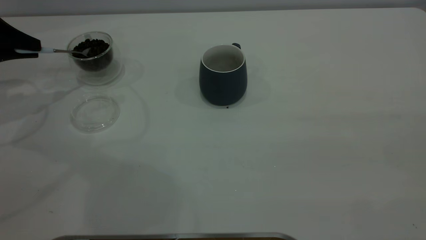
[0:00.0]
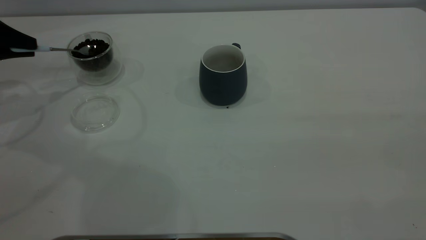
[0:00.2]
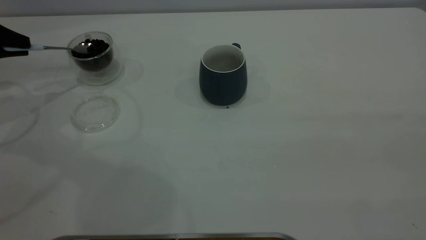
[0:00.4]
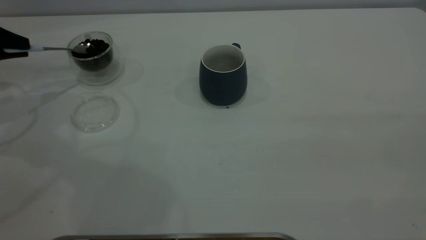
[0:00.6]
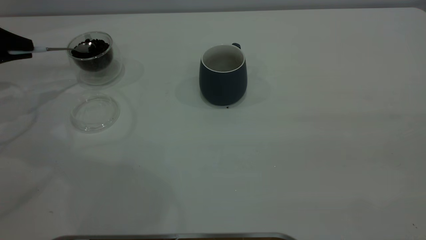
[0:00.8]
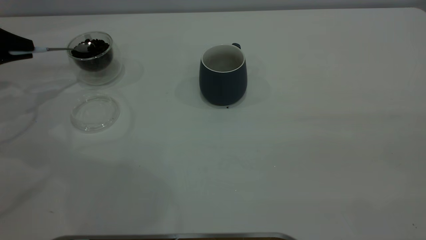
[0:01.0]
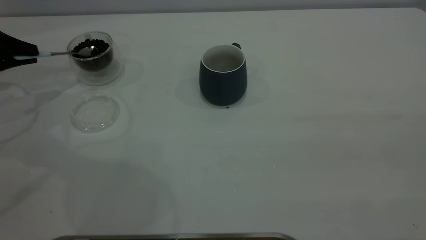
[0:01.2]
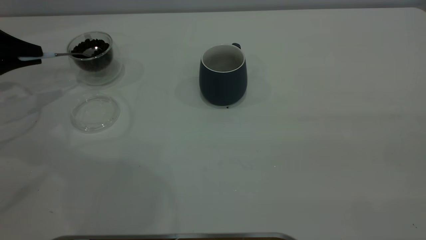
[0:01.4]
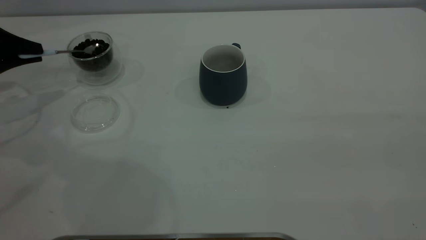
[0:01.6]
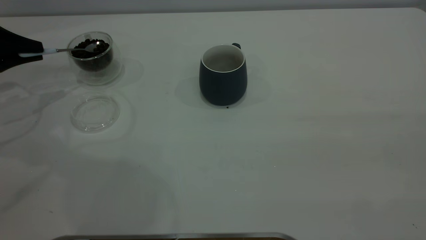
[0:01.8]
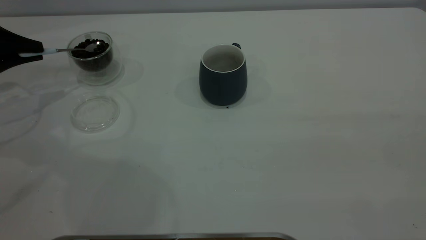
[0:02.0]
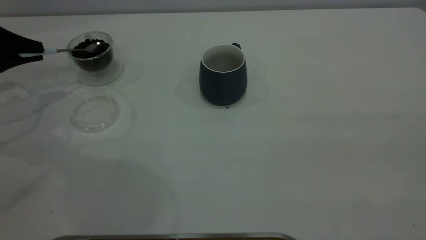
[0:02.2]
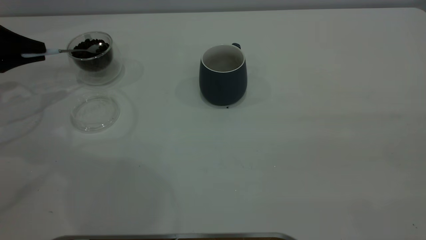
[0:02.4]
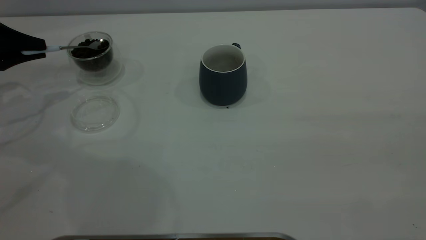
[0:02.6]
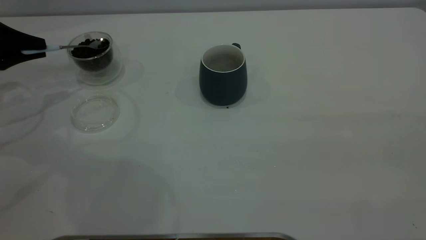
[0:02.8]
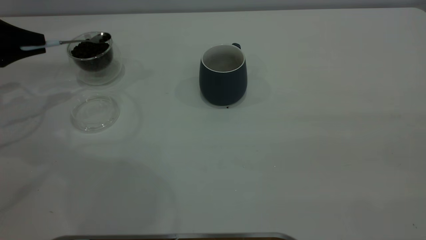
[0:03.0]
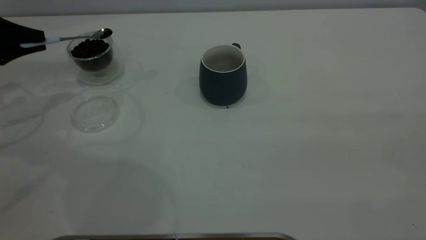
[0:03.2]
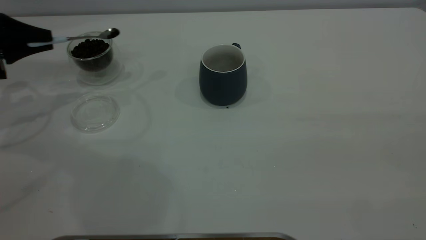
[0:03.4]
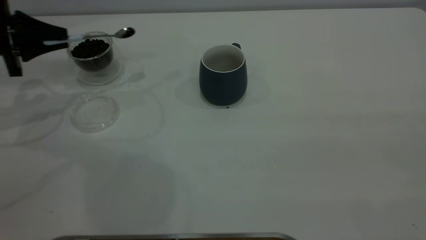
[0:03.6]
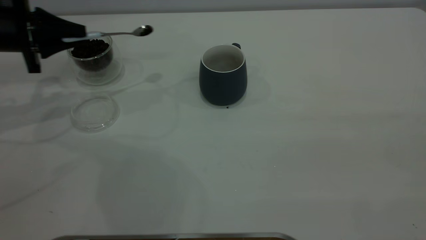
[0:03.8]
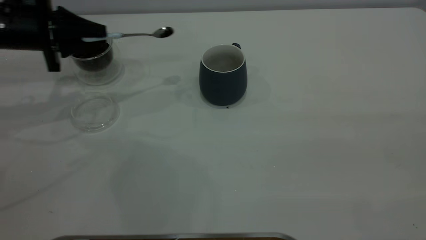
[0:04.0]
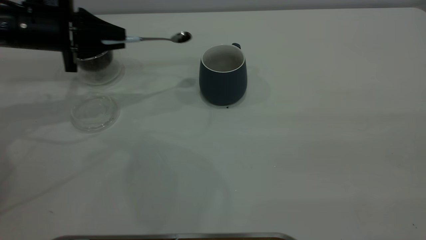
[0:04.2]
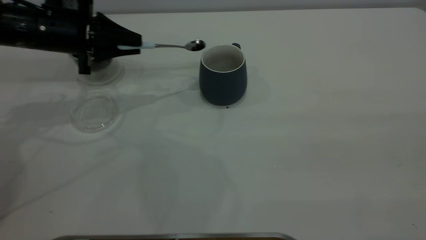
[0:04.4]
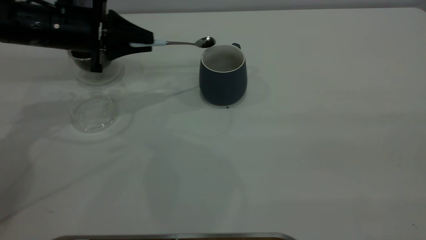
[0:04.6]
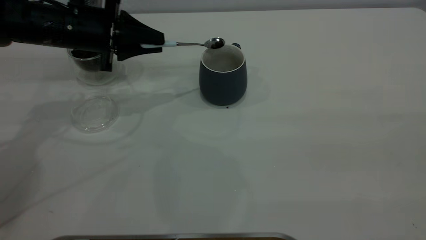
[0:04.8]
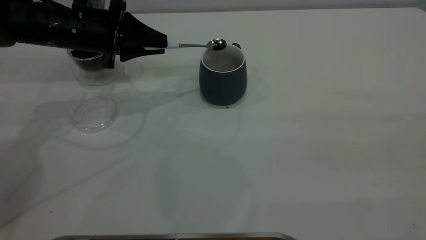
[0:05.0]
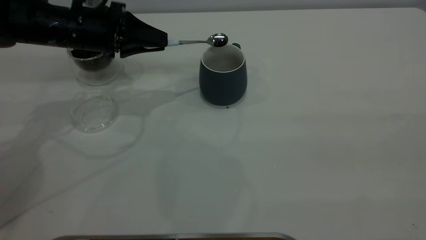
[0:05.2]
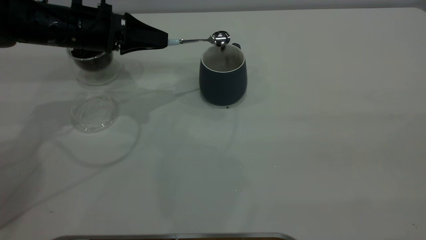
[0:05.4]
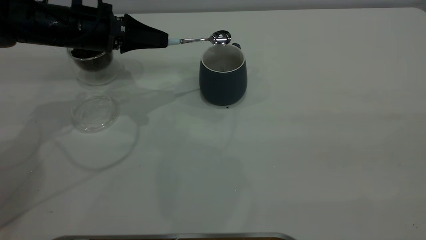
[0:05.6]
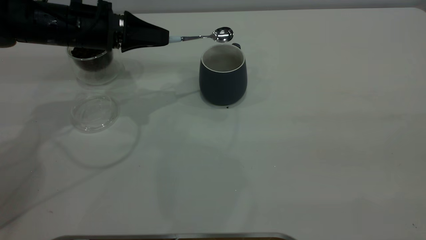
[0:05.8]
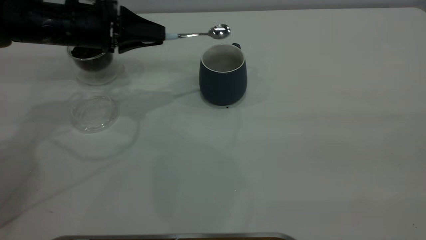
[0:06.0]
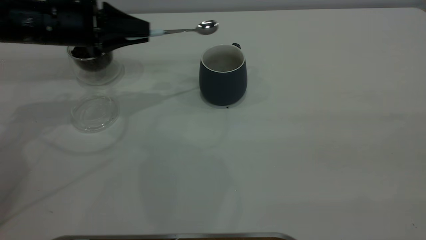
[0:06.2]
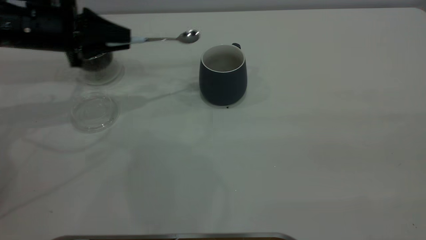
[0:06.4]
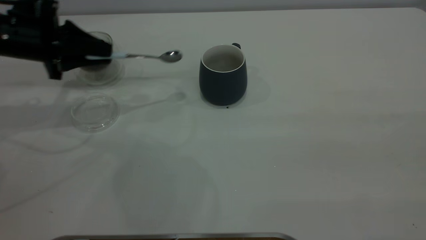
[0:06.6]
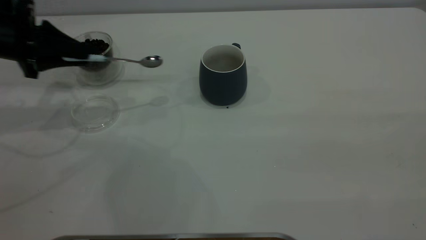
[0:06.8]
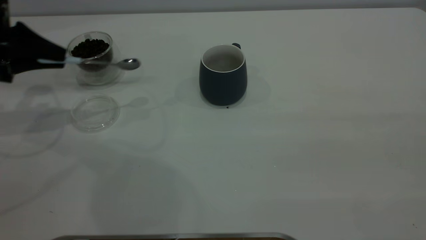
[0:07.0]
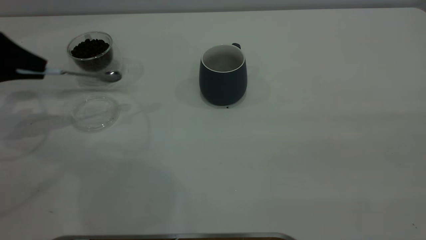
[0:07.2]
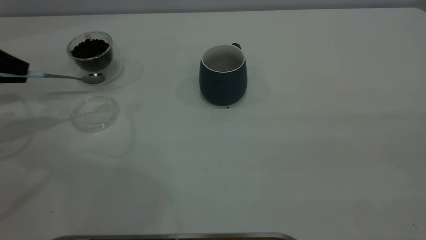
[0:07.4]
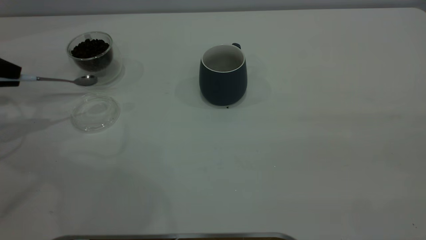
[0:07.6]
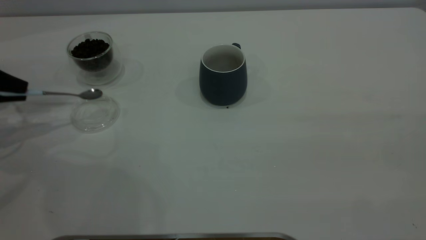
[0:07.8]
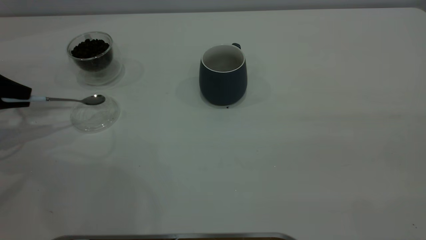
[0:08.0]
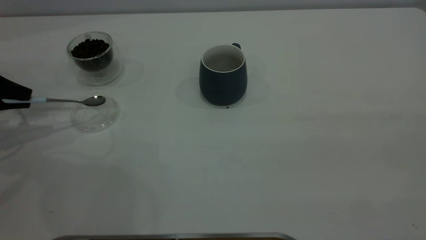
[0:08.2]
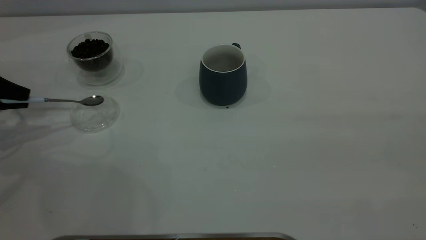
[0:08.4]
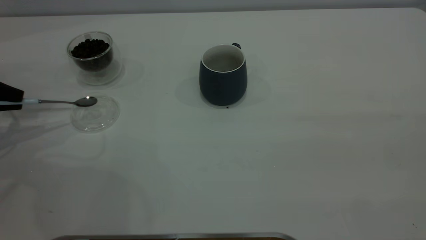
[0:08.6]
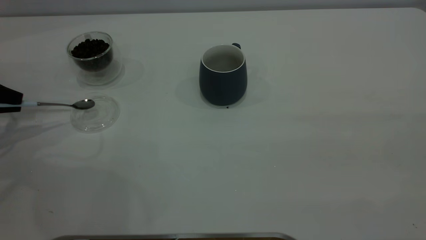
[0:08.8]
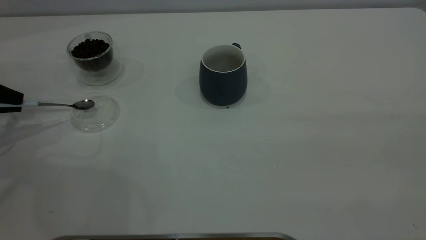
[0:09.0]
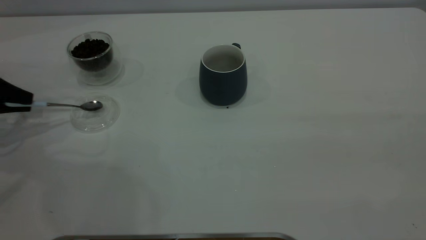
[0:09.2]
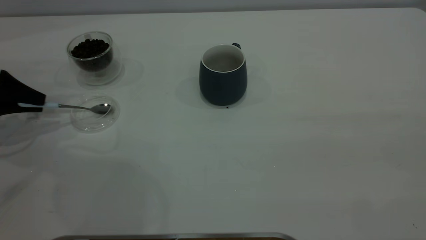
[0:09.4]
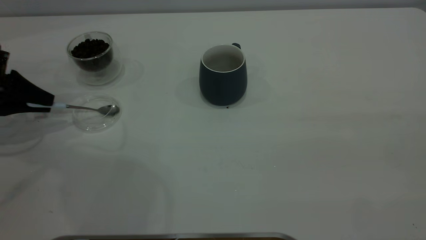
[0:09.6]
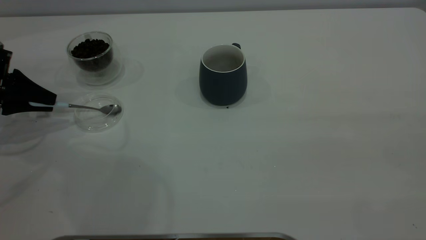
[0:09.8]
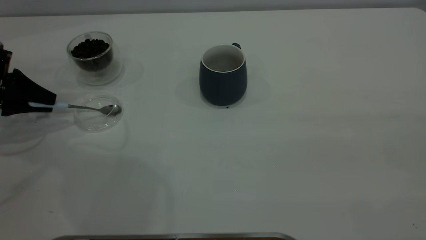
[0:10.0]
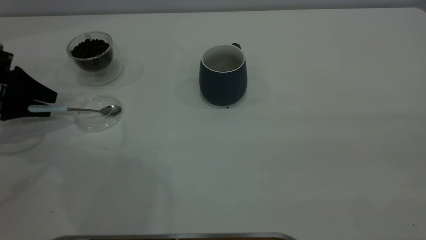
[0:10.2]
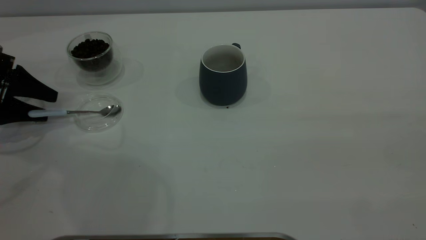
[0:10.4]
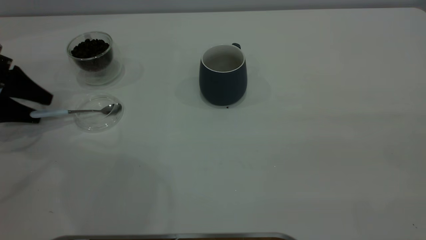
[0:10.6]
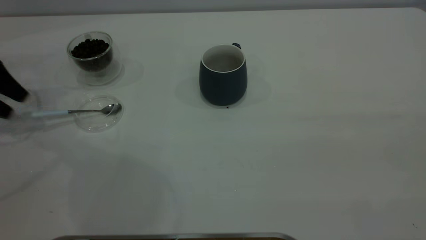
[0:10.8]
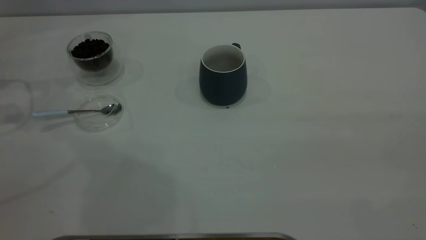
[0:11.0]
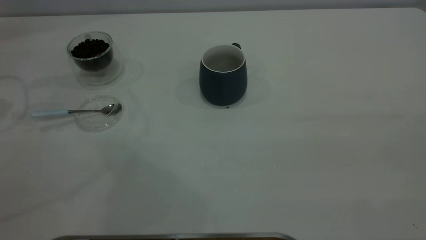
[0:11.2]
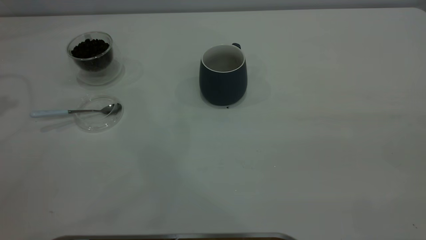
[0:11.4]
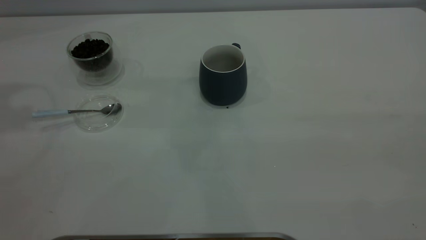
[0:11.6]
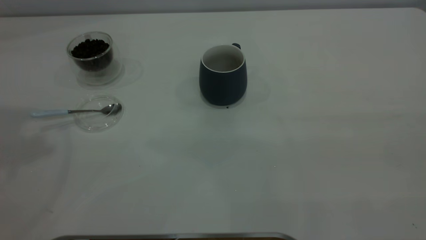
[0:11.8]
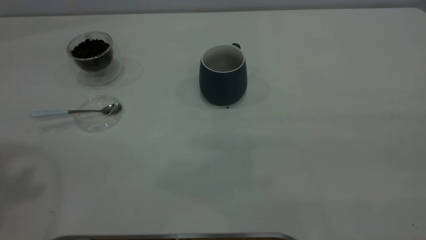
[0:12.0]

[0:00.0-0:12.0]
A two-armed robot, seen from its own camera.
Task of the whole recording: the right gripper place the grey cup in the center of the table, the left gripper take the blue spoon from the cup lid and scoop out the coffee beans from the coffee cup and put them into the grey cup, the left gripper put the spoon back into the cup lid.
Step, 0:00.0 to 0:06.0: Scoop a spoonful of beans into the cup.
Step, 0:06.4 to 0:10.8: Place the spoon back in its original place.
0:00.0 to 0:03.0: There are only small adjustments of the grippers.
0:03.0 to 0:04.4: The left gripper moves to the right, roughly 15 cm.
0:06.0 to 0:07.6: The left gripper moves to the left, some 20 cm.
0:07.6 to 0:09.0: The grippers make only small movements.
0:09.0 to 0:10.4: The left gripper opens up.
0:10.4 to 0:12.0: The left gripper goes about 40 cm upward.

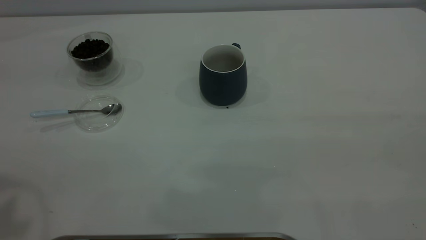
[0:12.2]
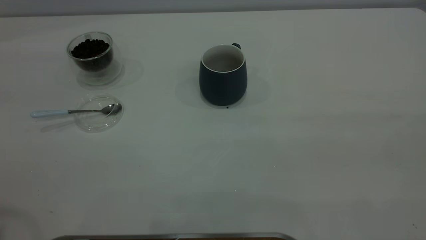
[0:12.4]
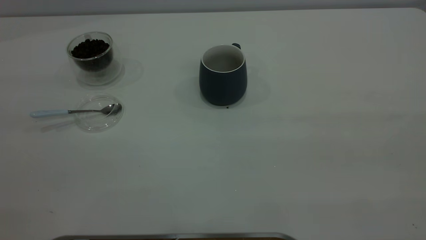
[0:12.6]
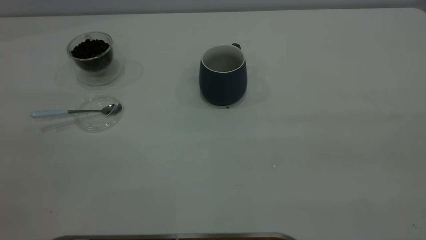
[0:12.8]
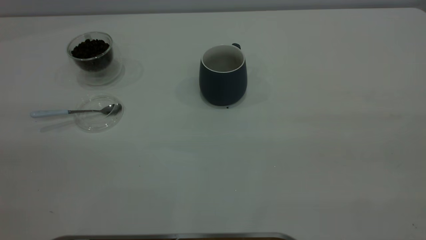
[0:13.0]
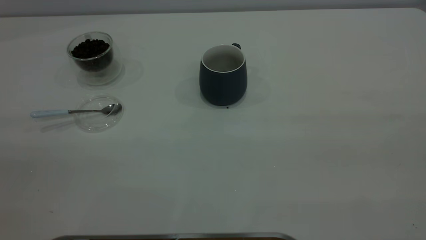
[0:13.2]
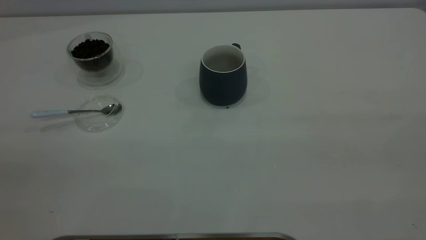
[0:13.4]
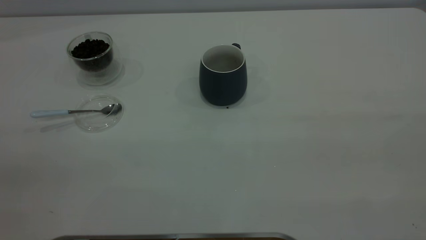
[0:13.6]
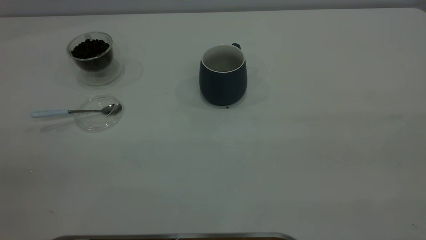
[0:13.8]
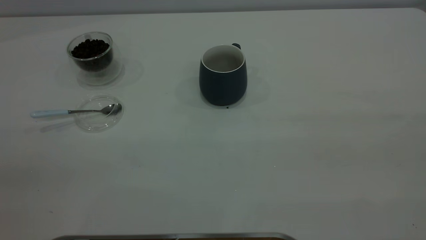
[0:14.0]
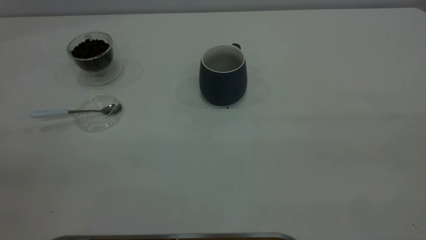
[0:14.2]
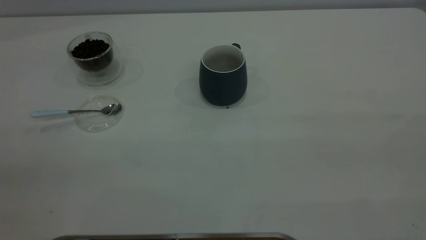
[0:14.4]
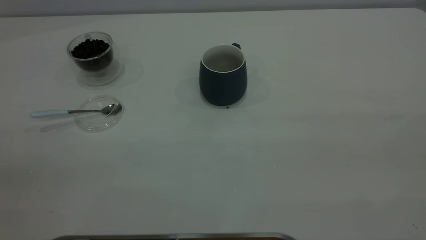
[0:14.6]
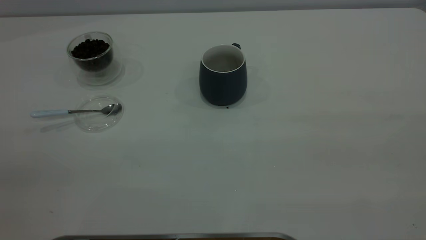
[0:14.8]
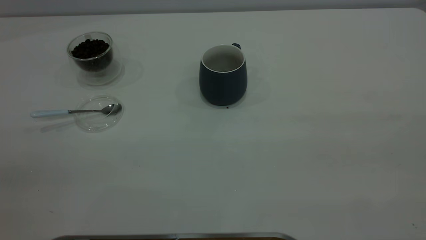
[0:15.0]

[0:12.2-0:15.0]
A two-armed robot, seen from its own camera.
Task of the whole recording: the right gripper place the grey cup in the center of the table, the left gripper take the blue spoon from the cup lid and scoop out the coffee beans from the coffee cup and put them into the grey cup, the left gripper put the spoon back into the cup lid.
0:13.6 to 0:15.0: The two grippers keep their place.
